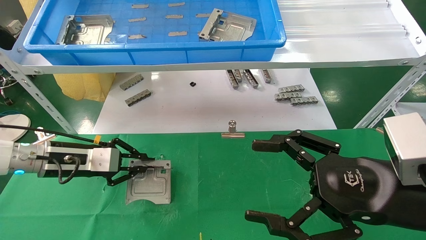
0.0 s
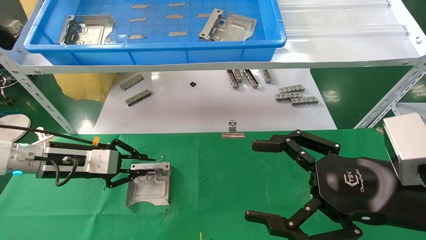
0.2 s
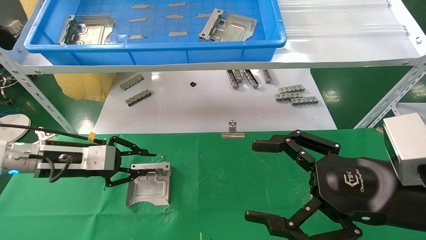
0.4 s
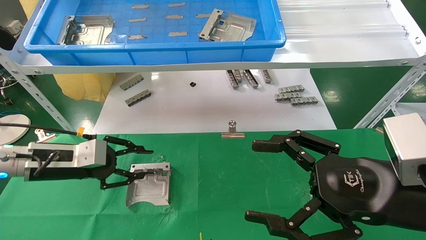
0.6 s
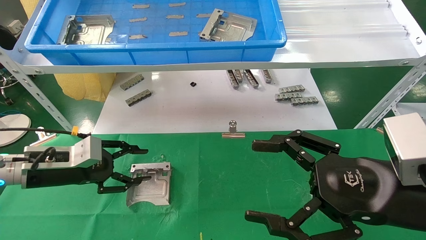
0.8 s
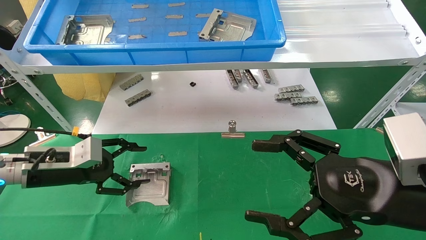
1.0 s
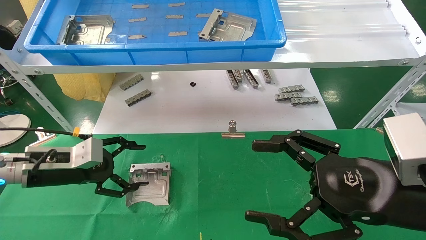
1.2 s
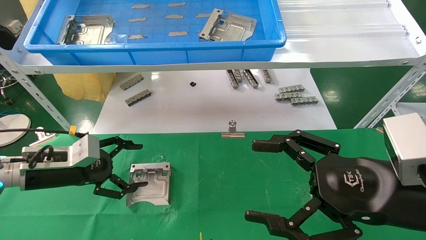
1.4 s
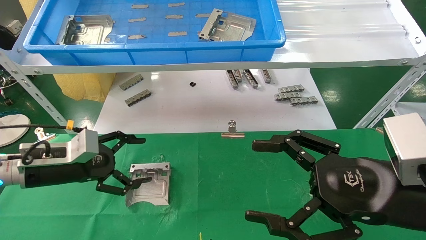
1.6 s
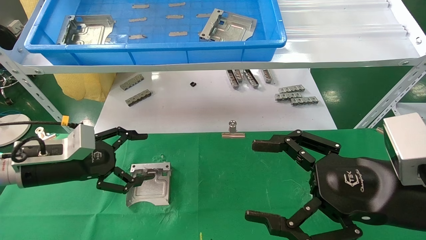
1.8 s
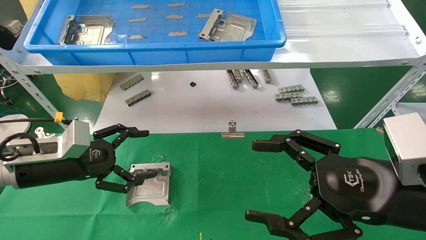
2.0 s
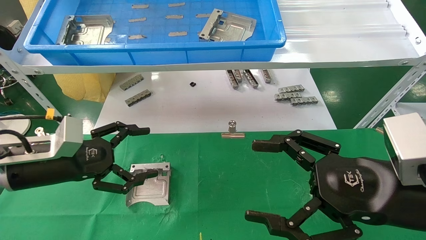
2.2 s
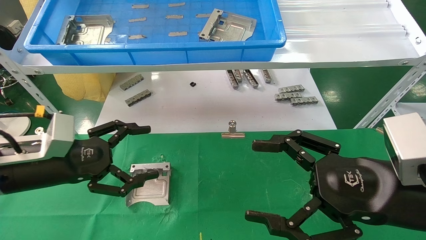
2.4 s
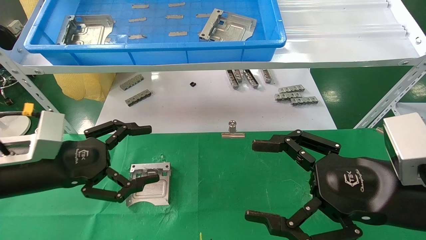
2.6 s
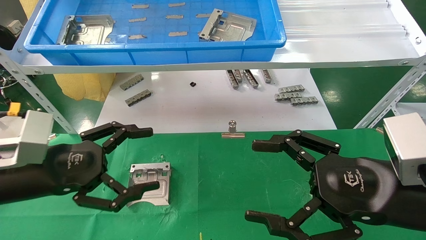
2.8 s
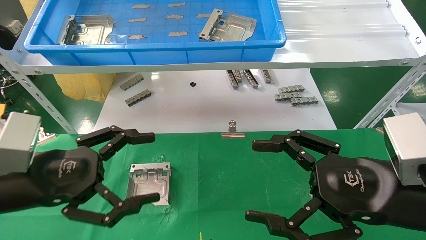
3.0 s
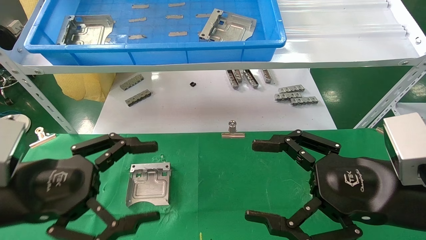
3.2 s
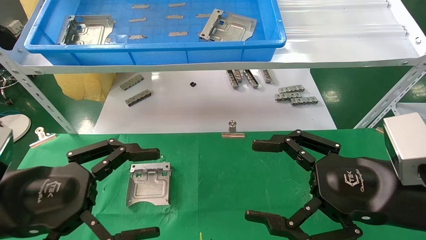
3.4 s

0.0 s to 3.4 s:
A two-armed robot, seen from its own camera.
Task of the whole recording: use the mechanical arm to pick up the parts and place them on the table.
0.0 to 1.6 s: The left gripper opens.
1.6 to 3.4 s: The left gripper is displaced backward by roughly 15 cm.

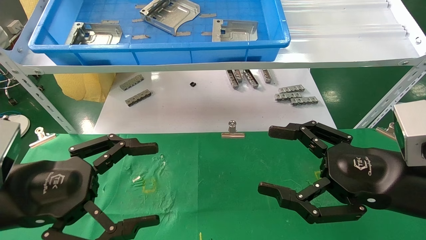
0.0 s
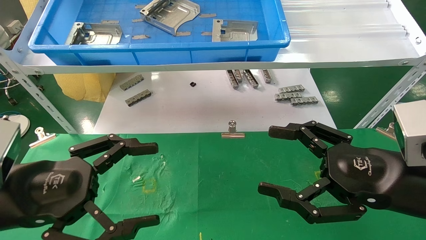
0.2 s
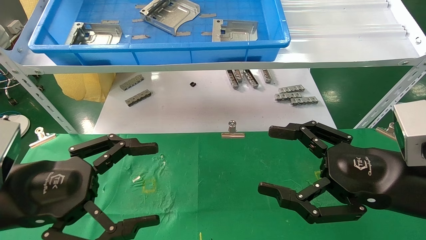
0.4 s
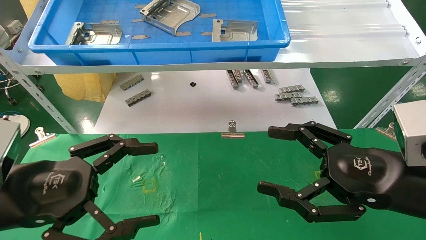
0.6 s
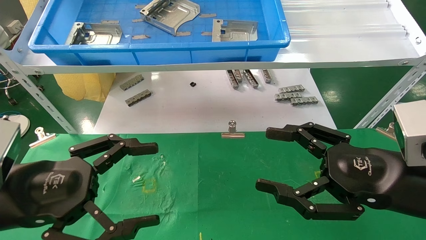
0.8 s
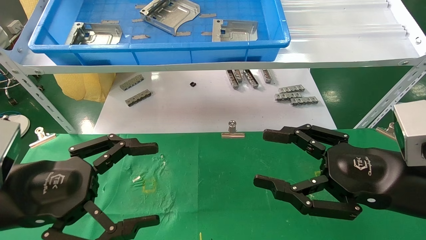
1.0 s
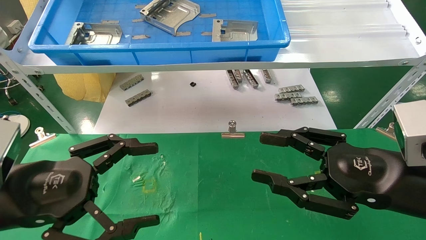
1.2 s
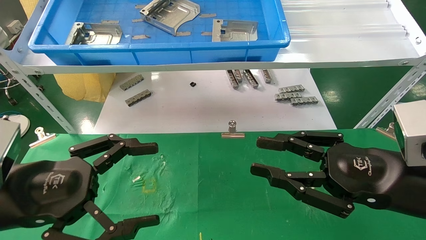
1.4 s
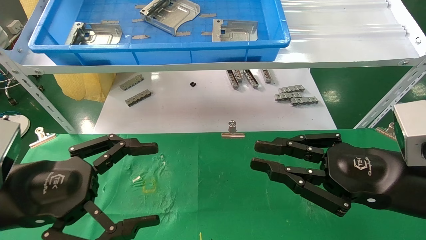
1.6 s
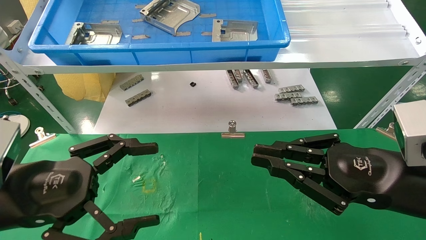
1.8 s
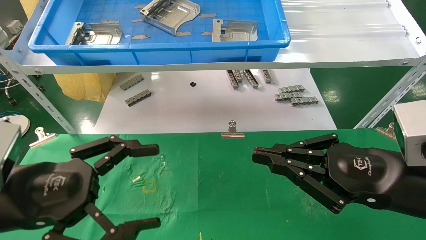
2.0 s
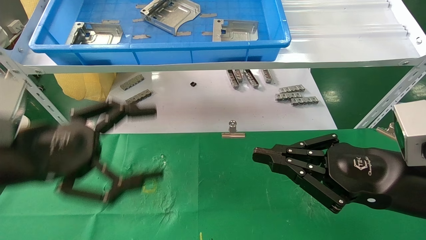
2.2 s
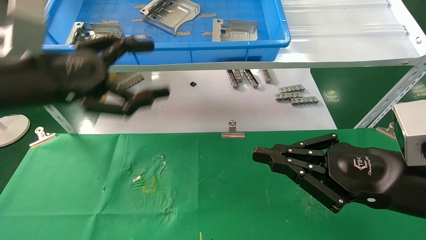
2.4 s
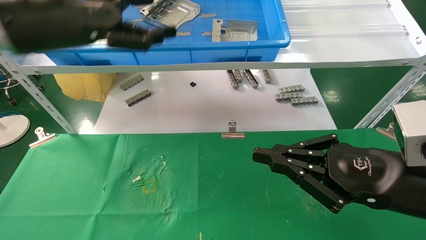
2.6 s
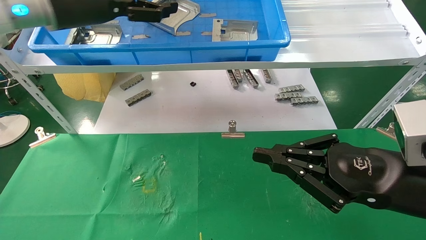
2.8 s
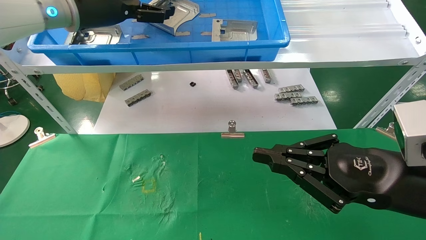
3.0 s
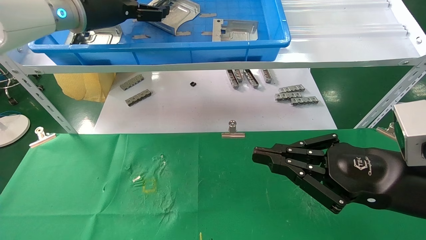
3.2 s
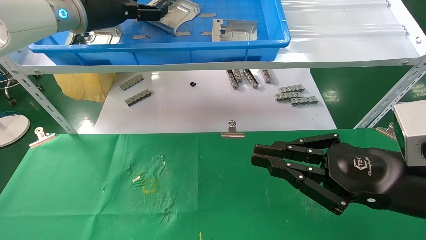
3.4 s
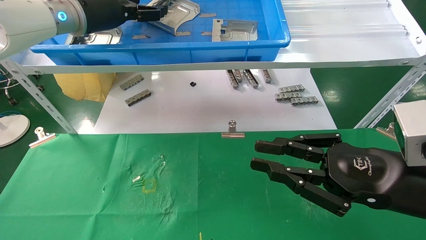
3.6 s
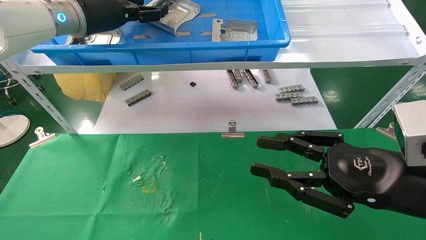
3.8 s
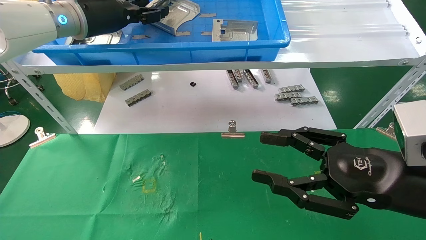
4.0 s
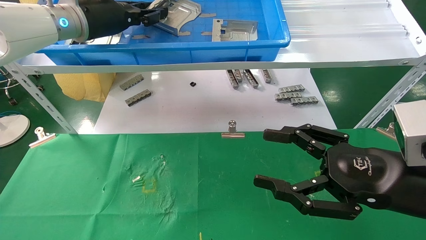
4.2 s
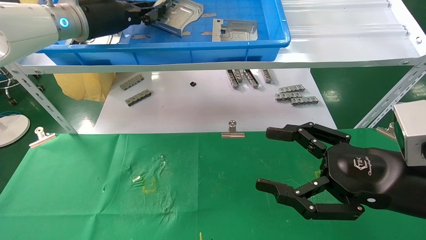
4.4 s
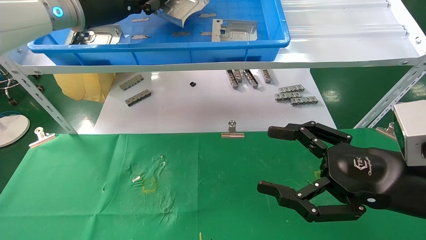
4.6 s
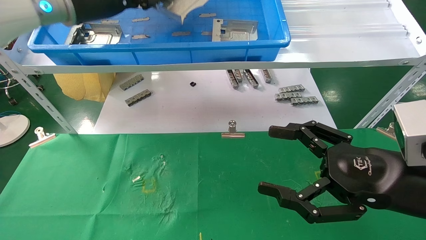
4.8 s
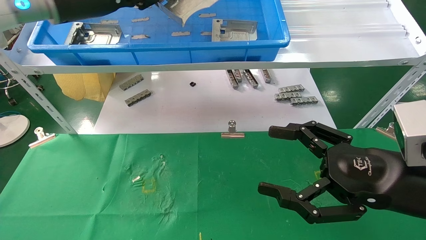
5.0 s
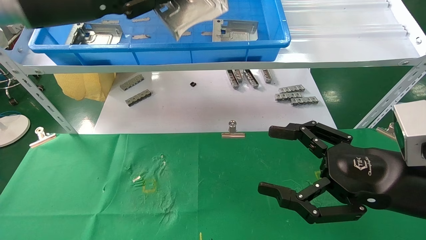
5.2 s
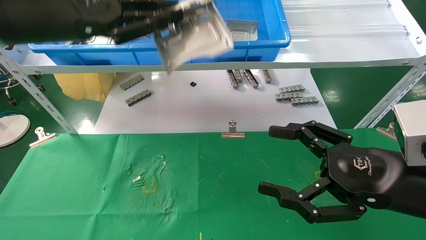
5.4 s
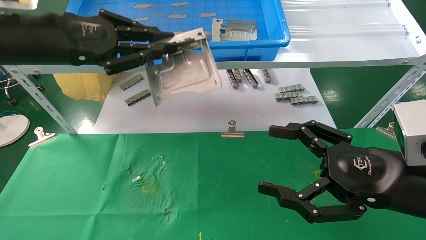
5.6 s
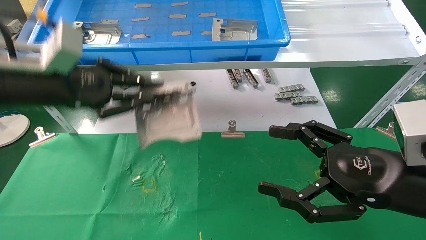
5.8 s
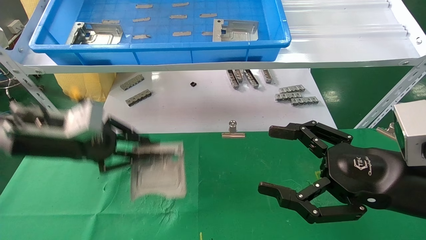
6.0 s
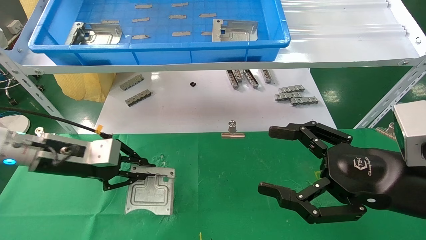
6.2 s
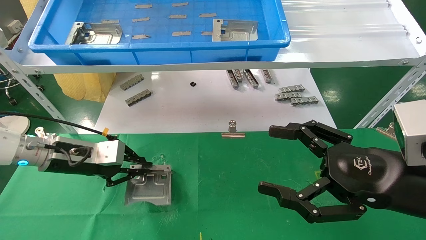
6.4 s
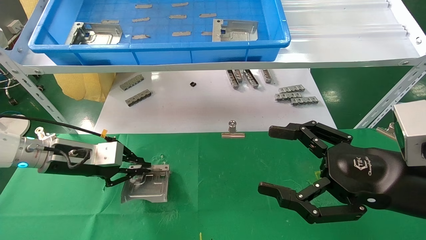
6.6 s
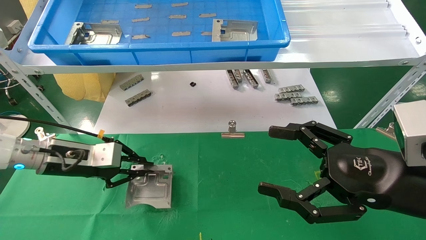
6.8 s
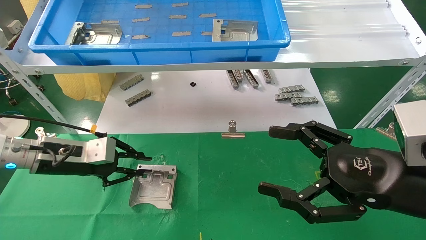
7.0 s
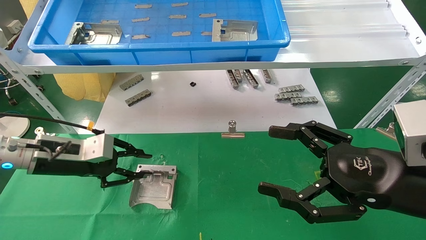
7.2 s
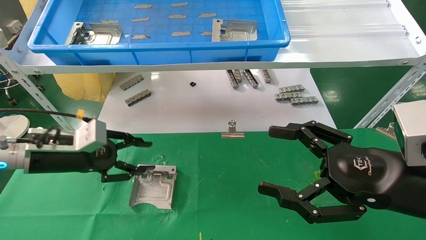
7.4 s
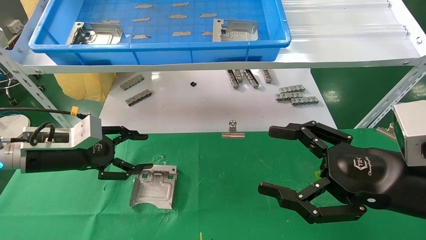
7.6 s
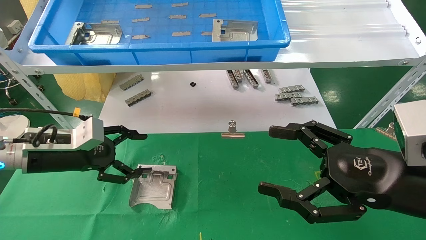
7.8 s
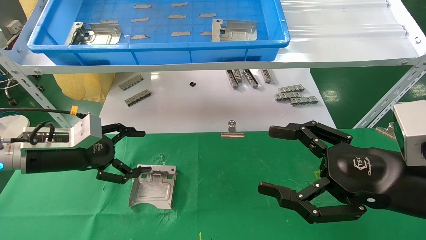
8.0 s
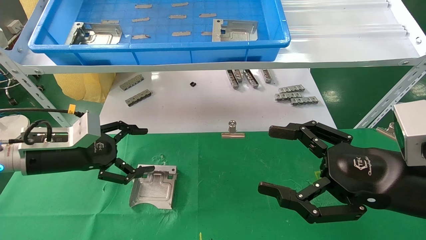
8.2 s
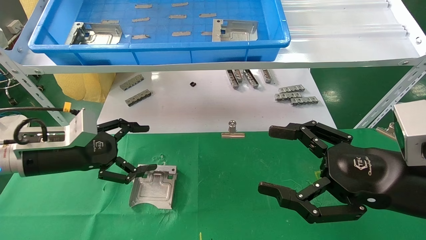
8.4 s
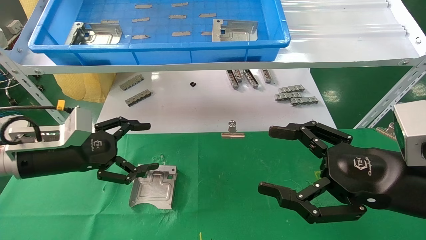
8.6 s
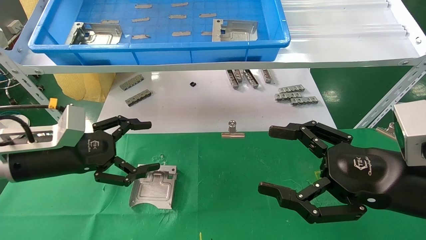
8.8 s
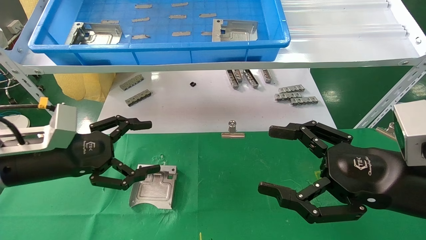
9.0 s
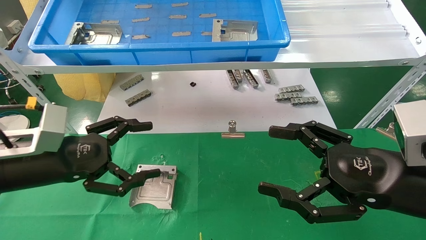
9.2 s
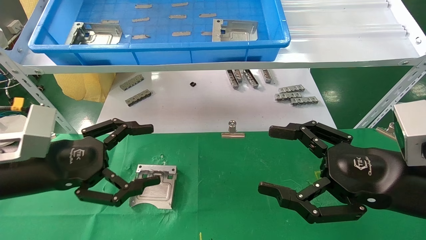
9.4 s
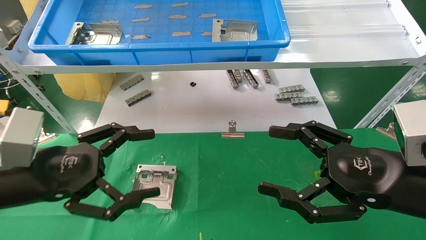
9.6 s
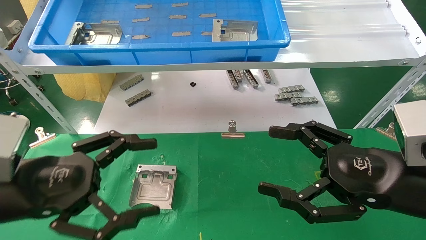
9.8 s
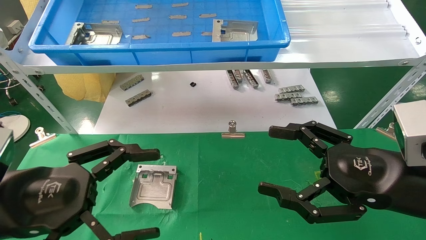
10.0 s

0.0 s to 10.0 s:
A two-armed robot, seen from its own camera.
Task of the whole recording: use the mechanical arm to pick up the parts and place them on the table.
Step, 2.4 to 4.6 s: Pick up the hard drive bracket from the feeding area.
Step, 4.8 to 8.2 s: Place the hard drive bracket into the box.
0.0 to 1.4 s: The right gripper closes its fingers.
1.4 to 2.8 s: The right gripper closes its fingers; the left gripper is displaced upward and forward by about 30 cm.
2.8 to 4.2 s: The left gripper travels forward by roughly 5 cm, and closes up; the right gripper opens its fingers.
4.2 to 5.8 s: The left gripper travels backward, downward and to the left by approximately 15 cm, and closes; the right gripper opens up.
5.8 to 7.2 s: The left gripper moves downward, some 15 cm.
7.2 to 8.6 s: The left gripper opens.
8.6 to 10.0 s: The left gripper shifts approximately 15 cm backward.

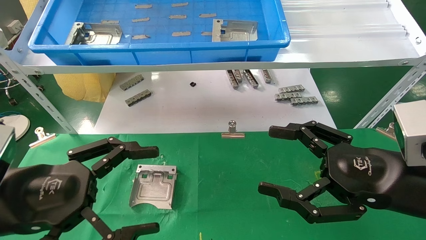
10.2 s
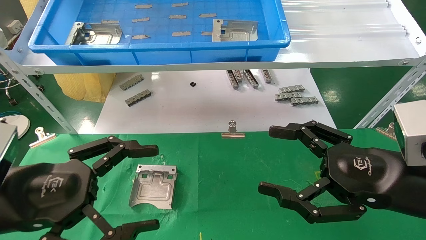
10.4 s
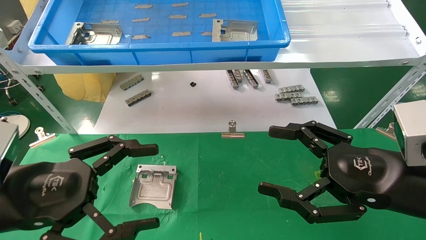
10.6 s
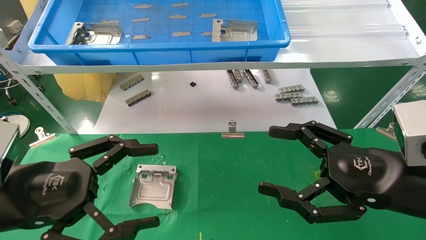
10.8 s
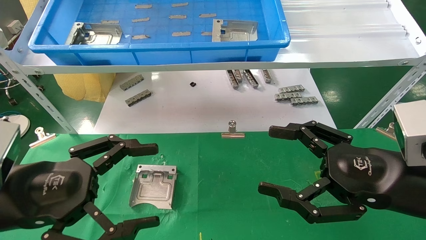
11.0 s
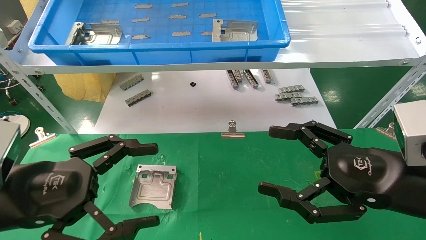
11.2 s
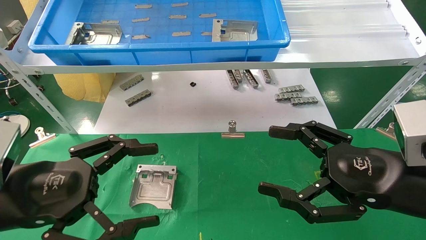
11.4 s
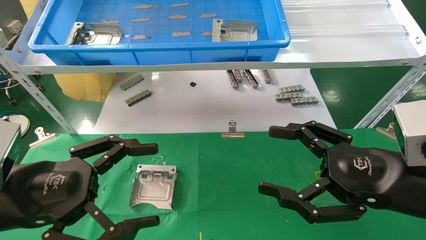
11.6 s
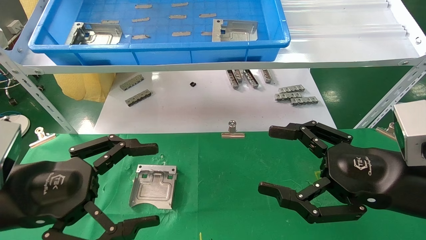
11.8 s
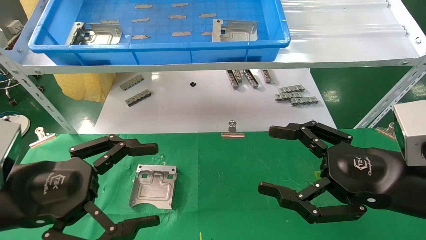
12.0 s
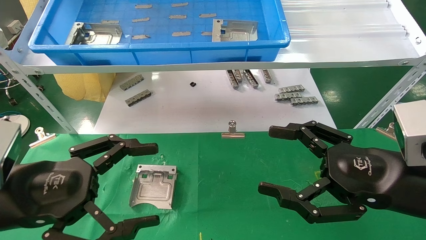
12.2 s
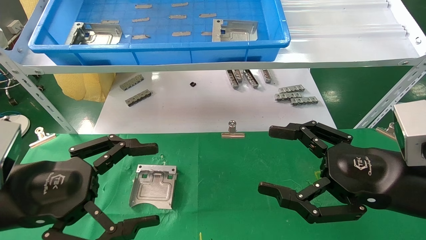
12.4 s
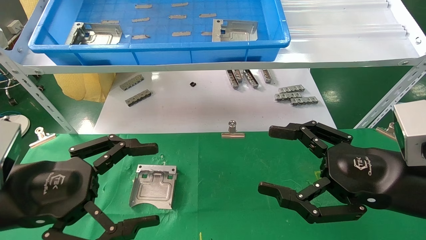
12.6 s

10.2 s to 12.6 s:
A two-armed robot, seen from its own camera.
Task of the whole recording: use the mechanical arm to pick up the parts and place them on the table.
10.2 to 12.6 s: The two grippers keep their place.
